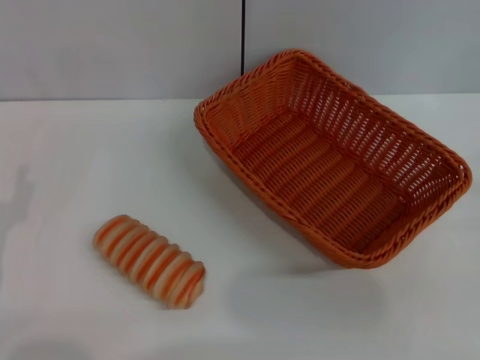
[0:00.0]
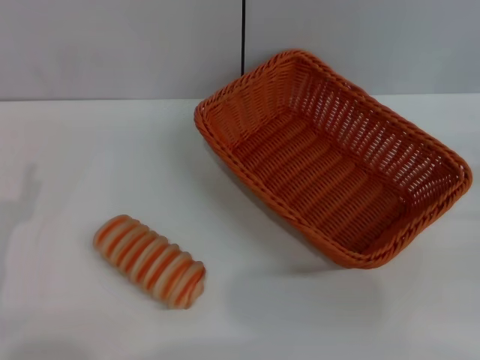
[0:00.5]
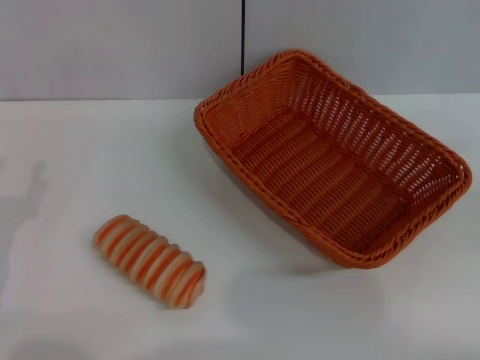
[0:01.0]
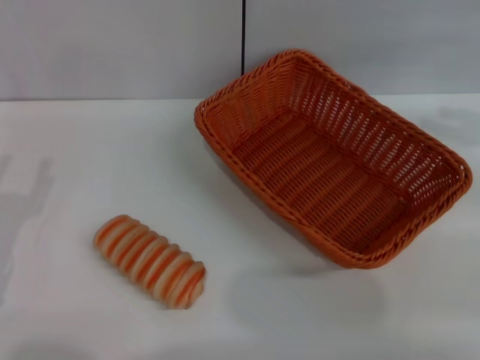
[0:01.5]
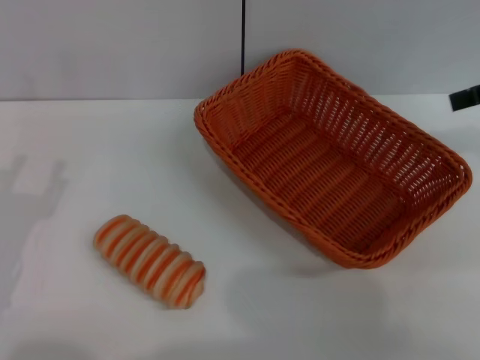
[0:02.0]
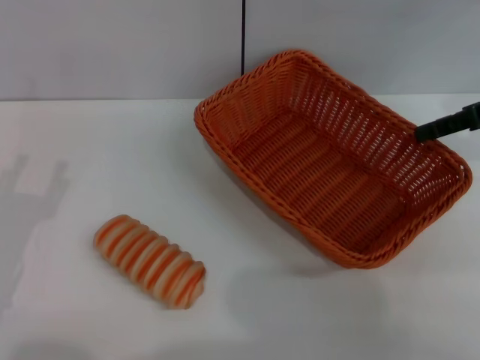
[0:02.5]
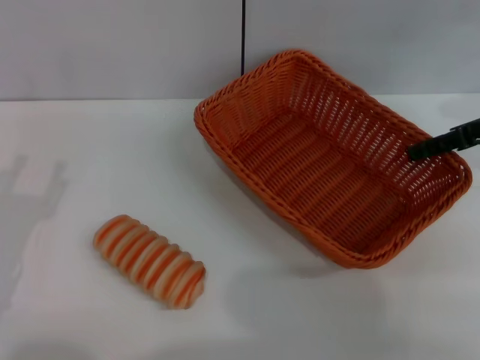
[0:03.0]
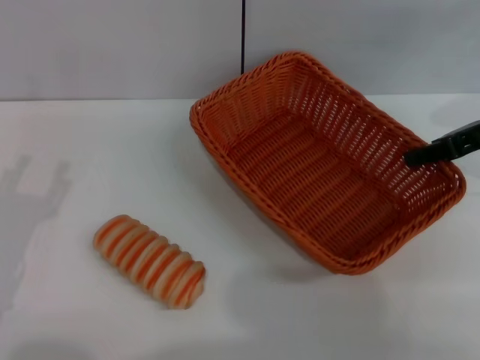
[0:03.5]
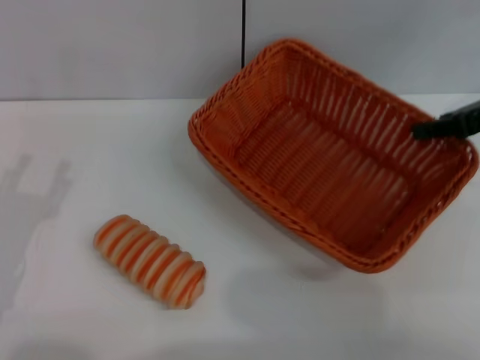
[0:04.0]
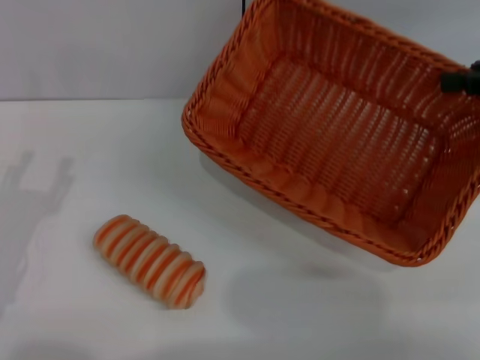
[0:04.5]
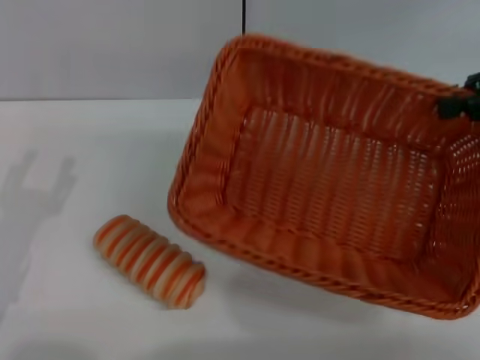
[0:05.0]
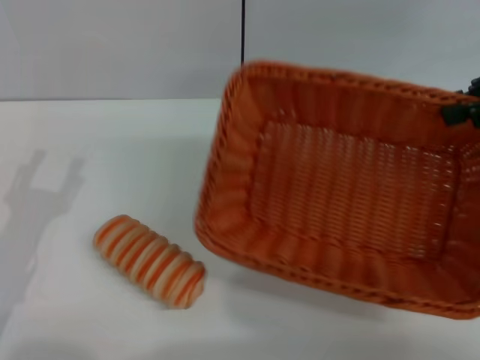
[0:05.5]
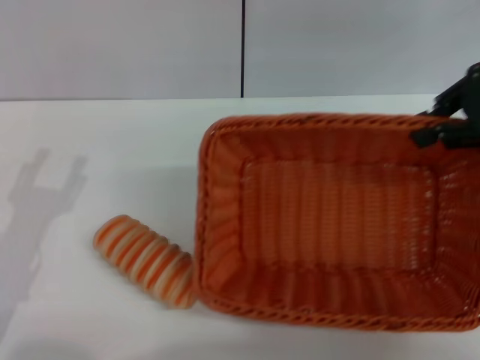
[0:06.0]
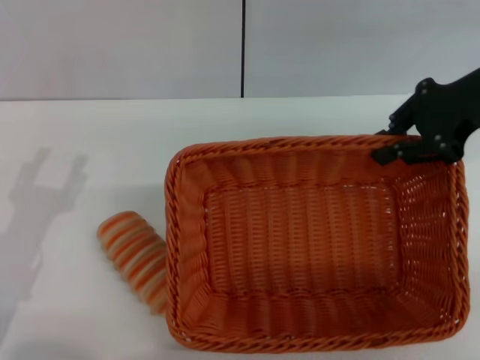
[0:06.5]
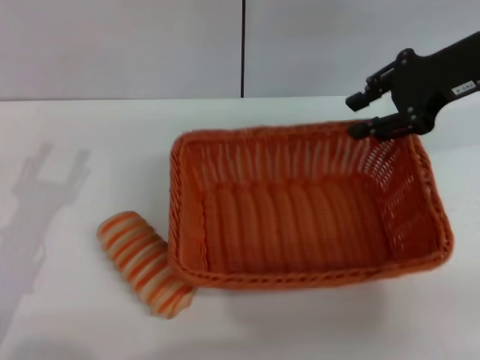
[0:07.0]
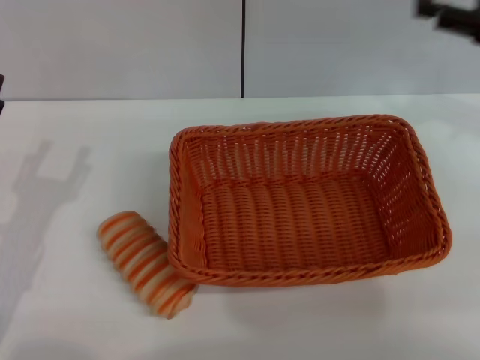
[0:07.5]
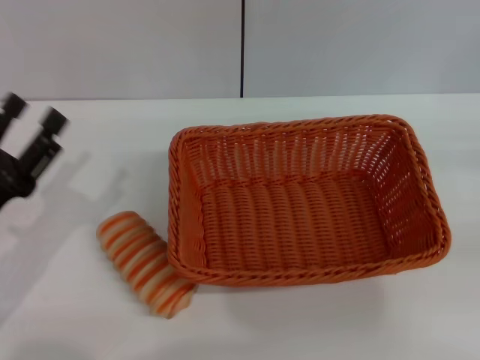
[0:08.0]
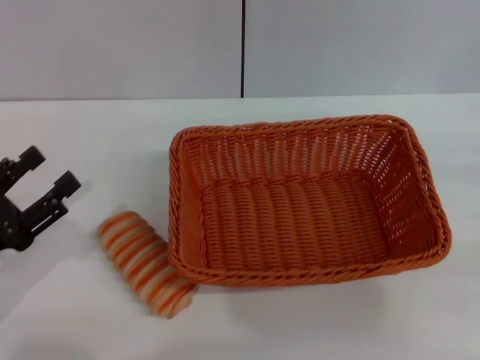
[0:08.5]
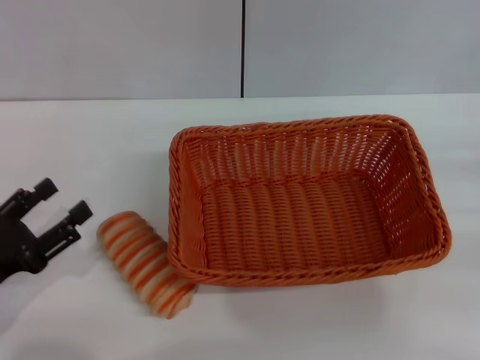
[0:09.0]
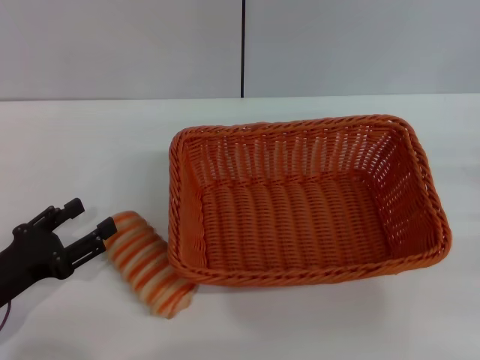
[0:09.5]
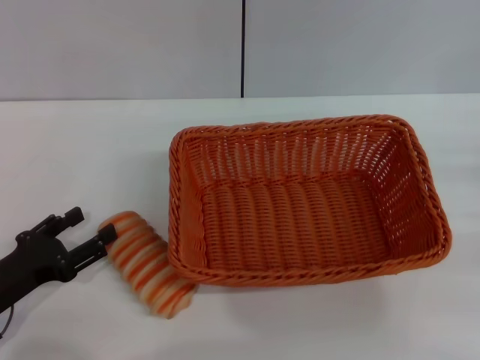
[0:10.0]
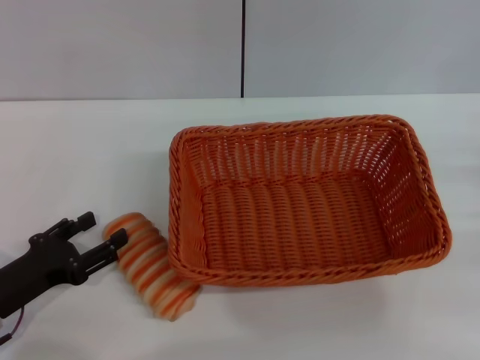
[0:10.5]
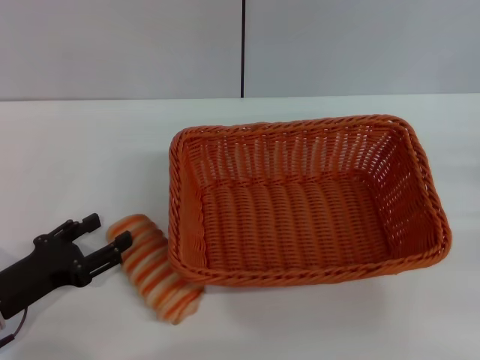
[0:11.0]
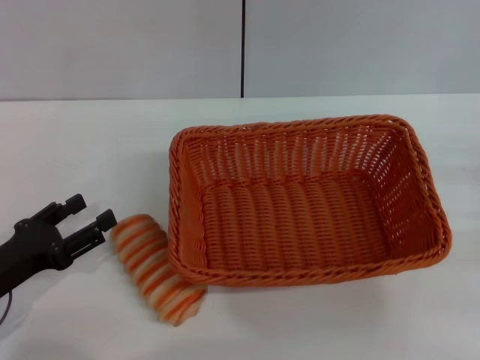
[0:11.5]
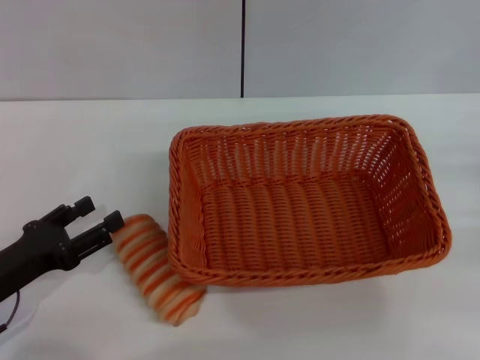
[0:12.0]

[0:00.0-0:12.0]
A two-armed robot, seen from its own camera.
Step, 0:00.0 to 0:06.5: Pick up the light basket with the right gripper.
Step, 0:07.0 to 0:07.5: Place the light basket in the center of view with the right gripper.
0:00.0 to 0:02.0: The right gripper travels upward and forward by some 25 cm.
0:02.0 to 0:04.0: The right gripper goes approximately 5 cm downward, and closes up.
0:04.0 to 0:06.0: The right gripper goes roughly 5 cm upward.
0:06.0 to 0:08.0: The right gripper goes some 20 cm downward, to the right and backward, and opens its fingers.
0:10.0 to 0:12.0: There are only small adjustments of the grippers.

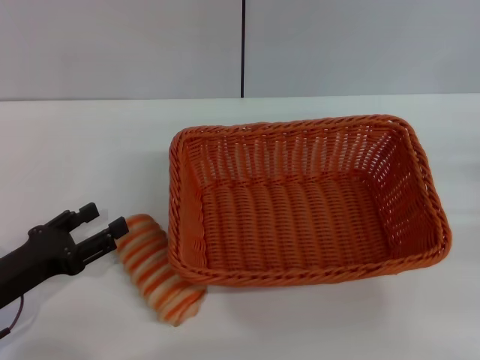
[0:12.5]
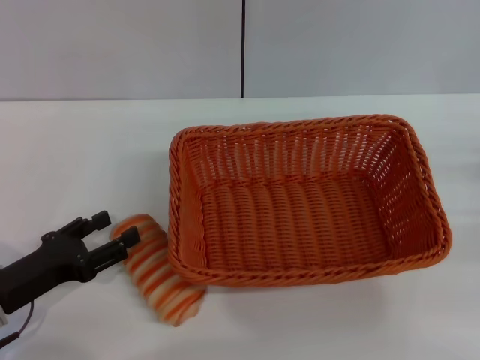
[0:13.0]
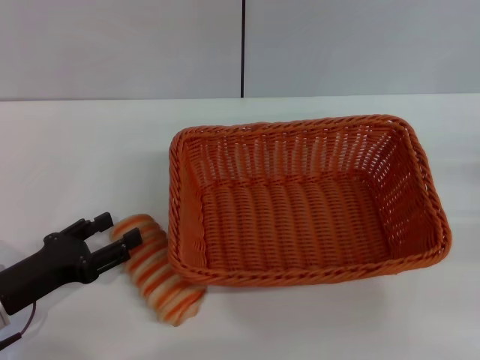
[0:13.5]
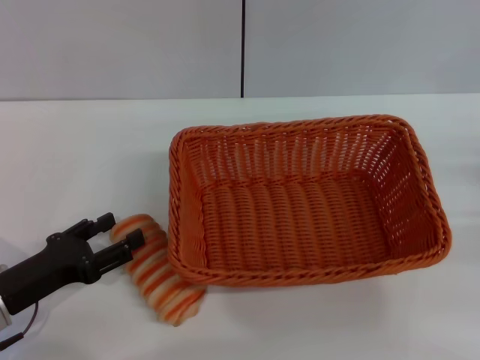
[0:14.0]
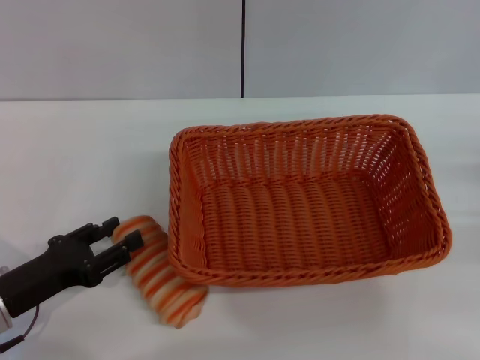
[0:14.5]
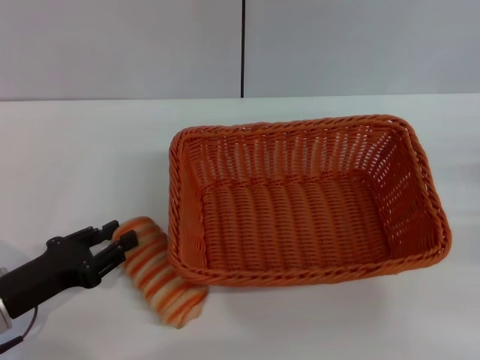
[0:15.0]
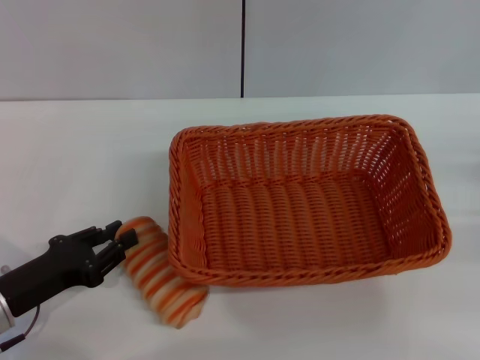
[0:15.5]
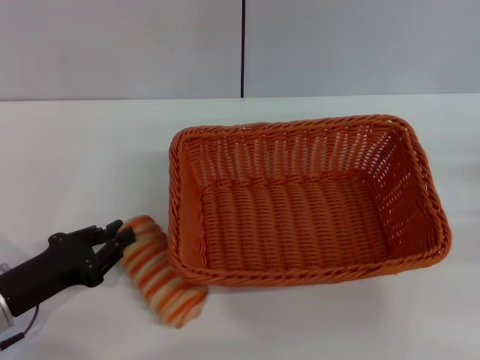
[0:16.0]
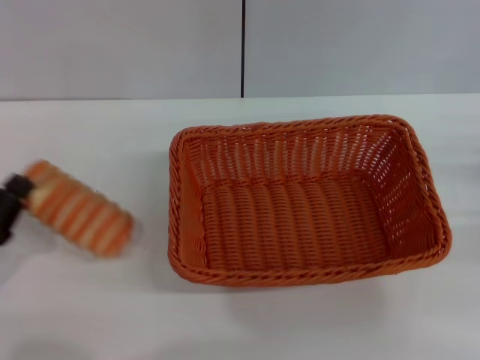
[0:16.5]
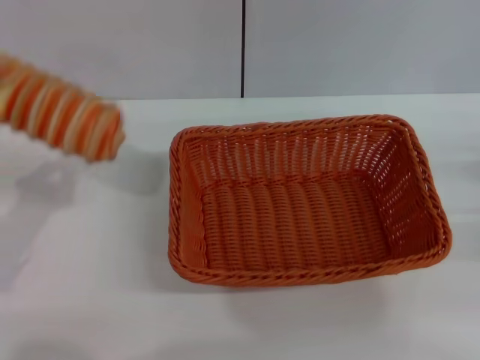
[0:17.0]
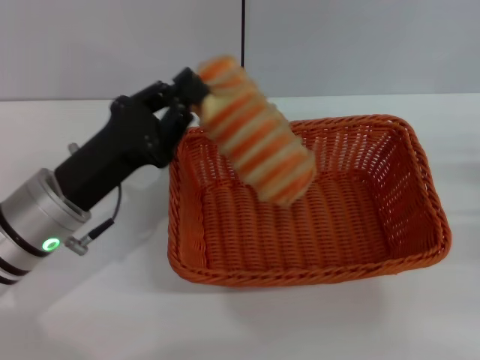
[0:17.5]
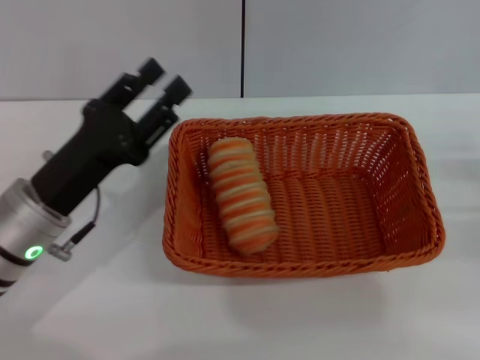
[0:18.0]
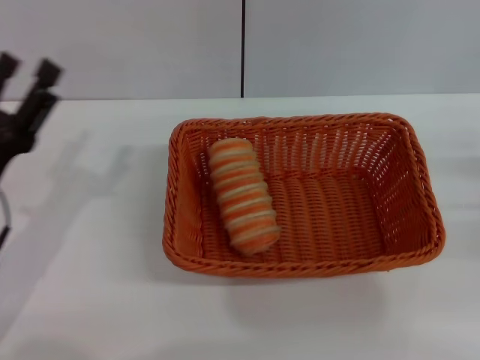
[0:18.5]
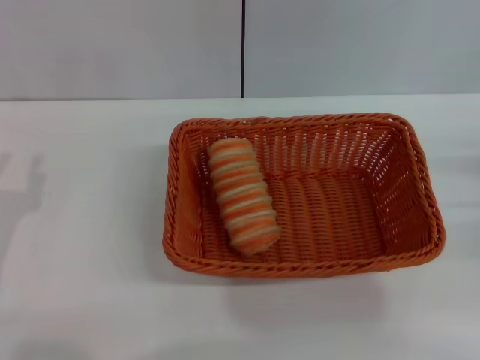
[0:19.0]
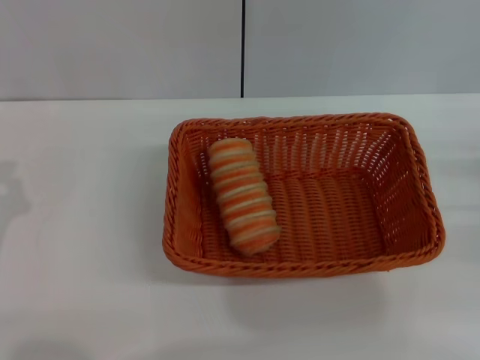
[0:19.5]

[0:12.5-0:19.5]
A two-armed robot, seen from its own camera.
Step, 0:12.5 to 0:17.0: Pick up the long bread with the left gripper.
Step, 0:17.5 to 0:18.0: Place the long bread into the light basket with the left gripper.
0:12.5 to 0:14.5: Neither gripper changes place.
0:14.5 to 0:16.0: The left gripper closes.
0:16.0 to 0:17.5: The left gripper heads to the right, upward and forward, covering some 15 cm.
0:17.5 to 0:19.5: The left gripper shifts roughly 15 cm to the left and backward, and opens, then closes once more.
